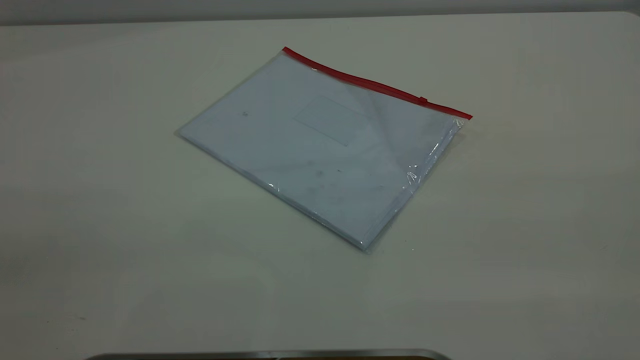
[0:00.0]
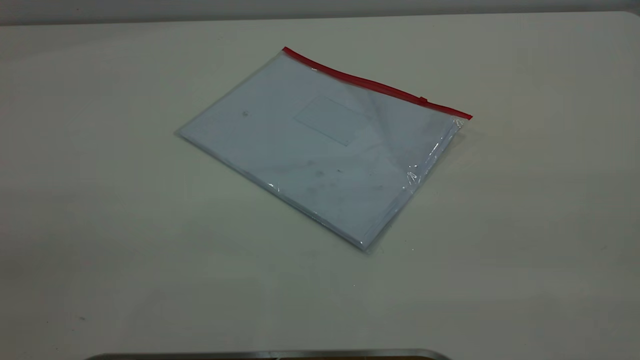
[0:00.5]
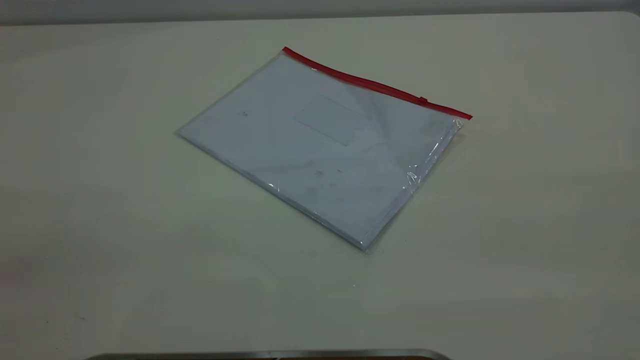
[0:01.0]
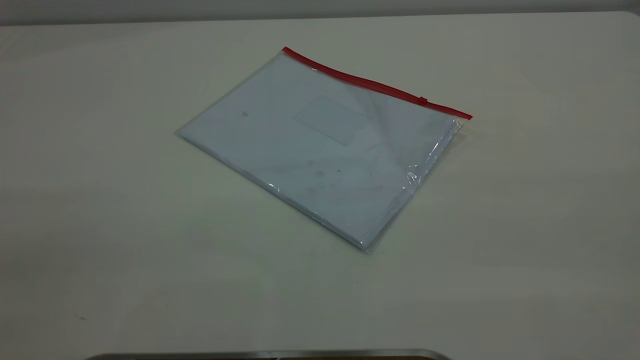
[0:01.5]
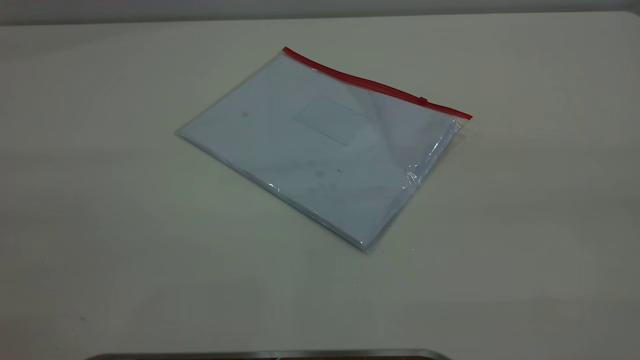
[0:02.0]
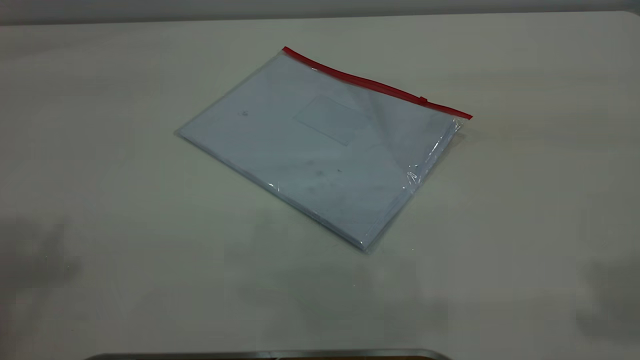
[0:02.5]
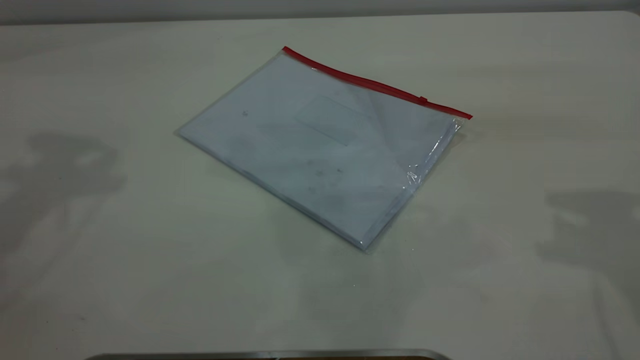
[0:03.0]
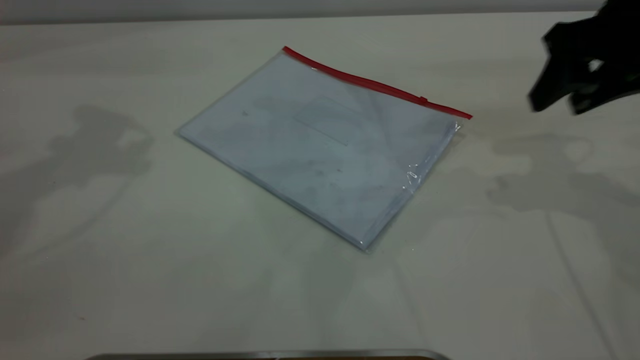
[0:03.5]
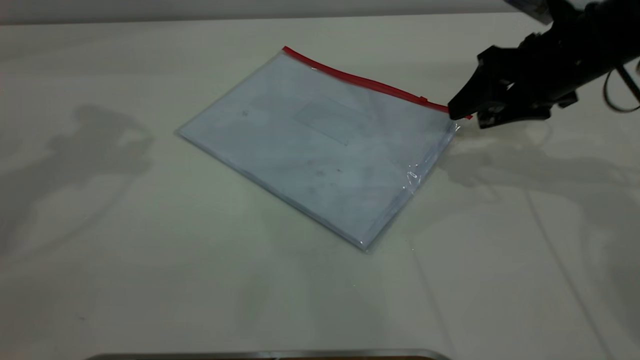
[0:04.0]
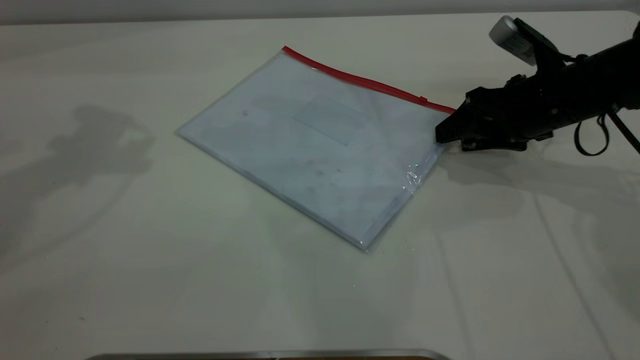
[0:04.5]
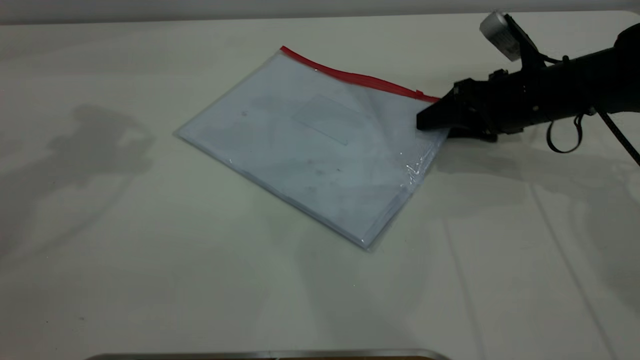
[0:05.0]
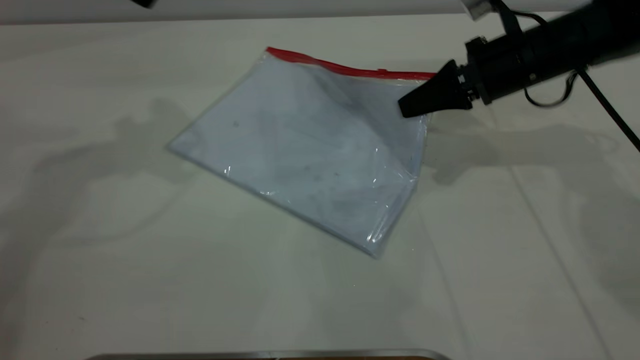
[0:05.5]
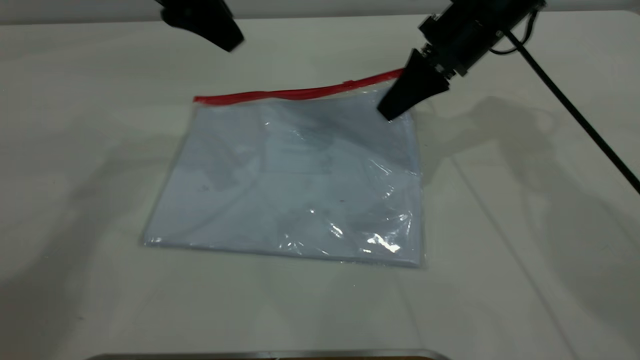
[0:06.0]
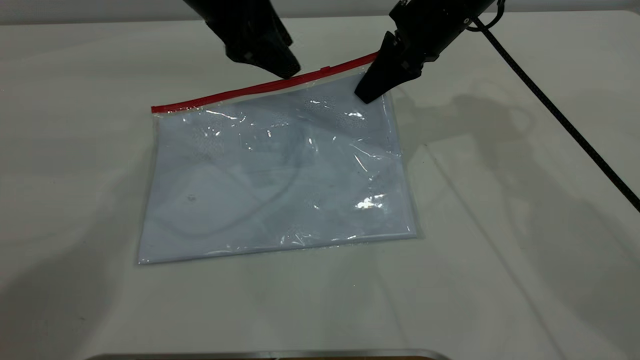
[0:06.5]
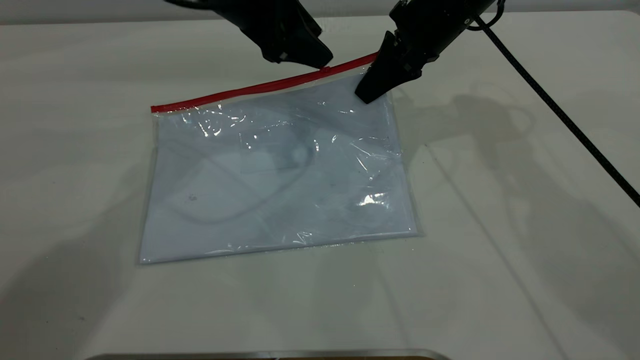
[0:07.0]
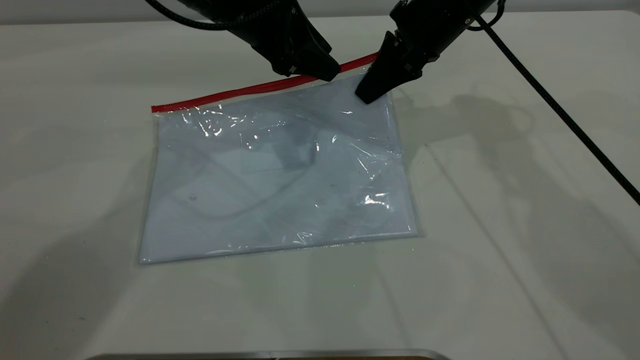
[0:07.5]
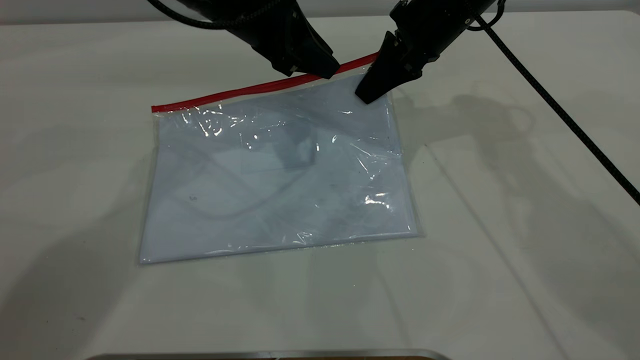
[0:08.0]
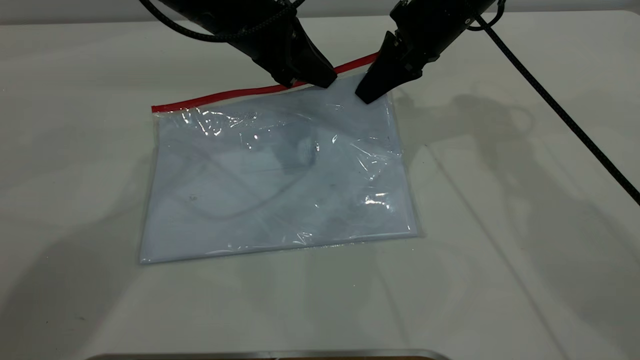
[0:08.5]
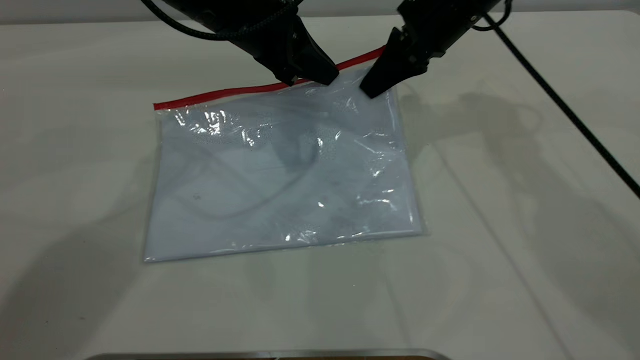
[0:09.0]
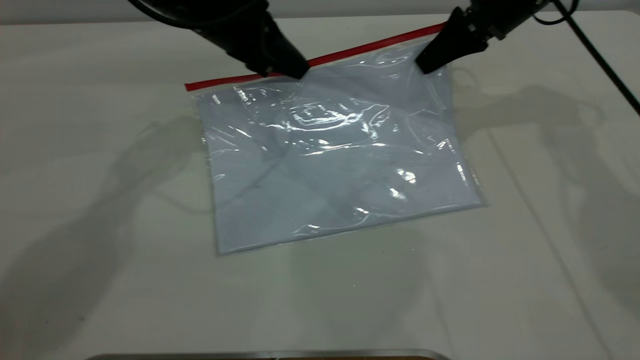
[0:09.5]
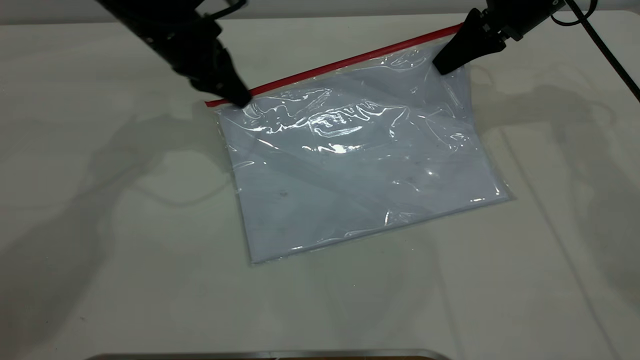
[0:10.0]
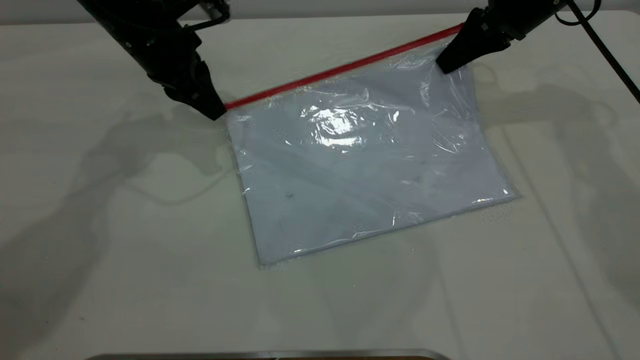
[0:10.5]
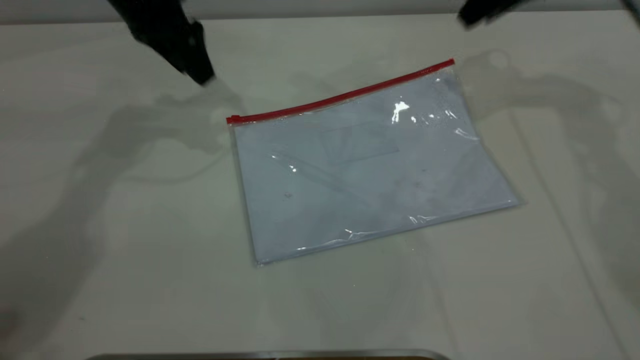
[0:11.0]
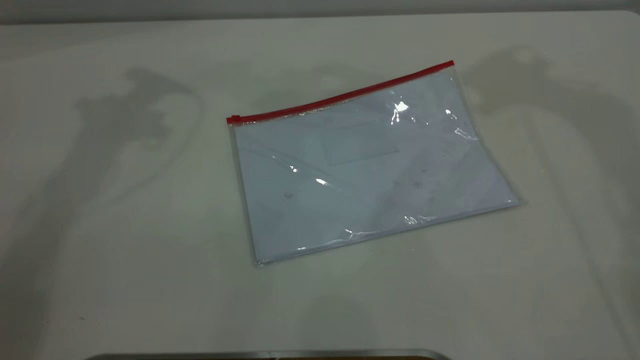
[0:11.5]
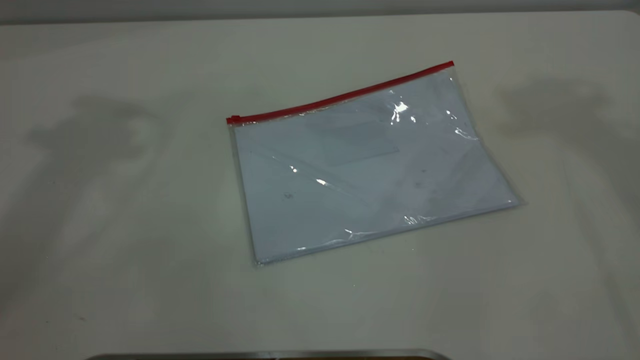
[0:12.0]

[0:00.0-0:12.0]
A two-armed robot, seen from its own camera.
Step, 0:00.0 to 0:06.0: Pick up the transparent plastic bag with the right gripper.
Step, 0:06.5 to 0:10.0: Pulling up the zipper on the transparent plastic bag with the left gripper to close it.
Step, 0:11.0 to 0:11.5: Place the transparent plastic bag.
0:02.0 to 0:04.0: The right gripper moves forward and downward, about 50 cm.
0:04.0 to 0:06.0: The right gripper heads to the left and forward, covering approximately 10 cm, and closes up. The left gripper moves to the right and downward, roughly 15 cm.
0:06.0 to 0:08.0: The left gripper heads downward and to the right, covering some 10 cm, and closes up.
0:08.0 to 0:10.0: The right gripper is displaced to the right by about 10 cm, while the left gripper travels to the left by approximately 10 cm, and closes.
0:10.0 to 0:12.0: Both grippers travel together upward, about 40 cm. The left gripper opens up. The right gripper opens up.
